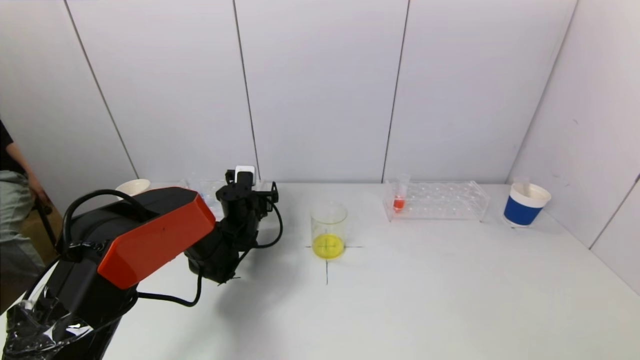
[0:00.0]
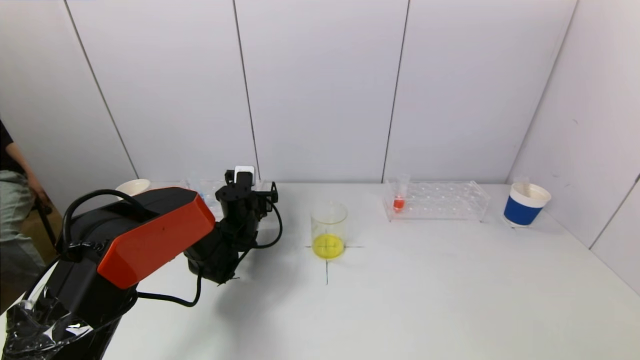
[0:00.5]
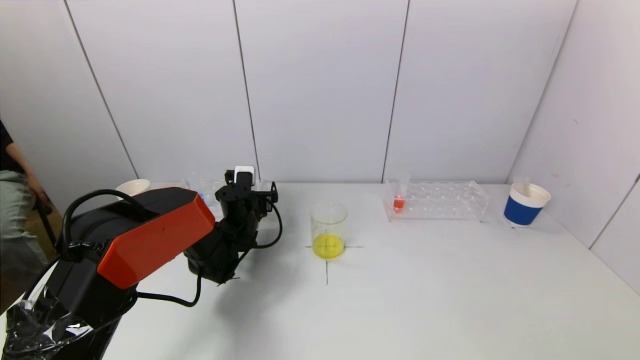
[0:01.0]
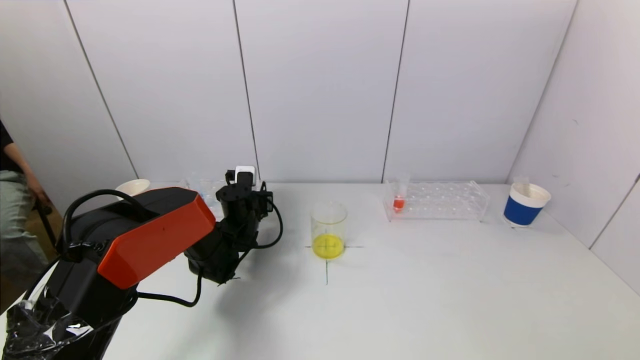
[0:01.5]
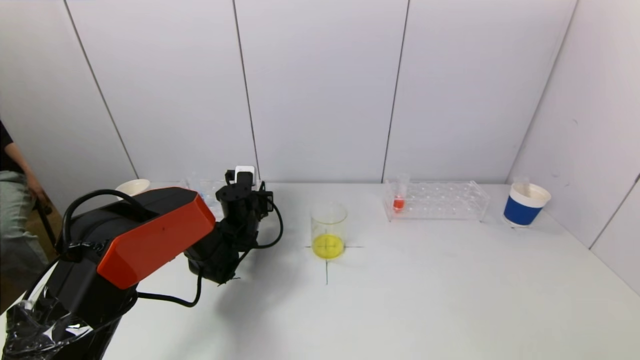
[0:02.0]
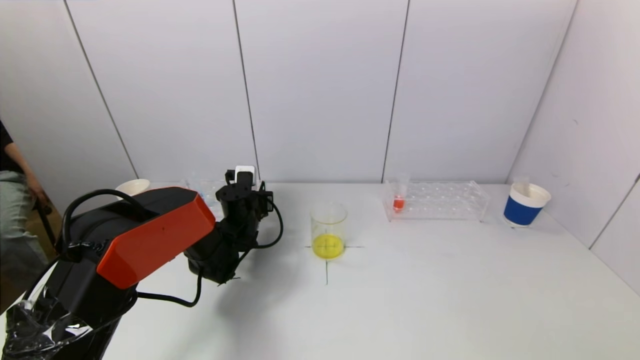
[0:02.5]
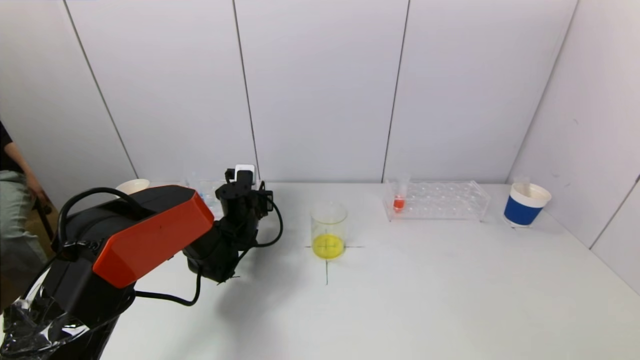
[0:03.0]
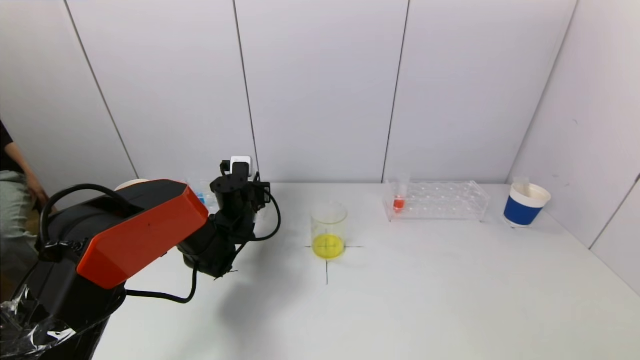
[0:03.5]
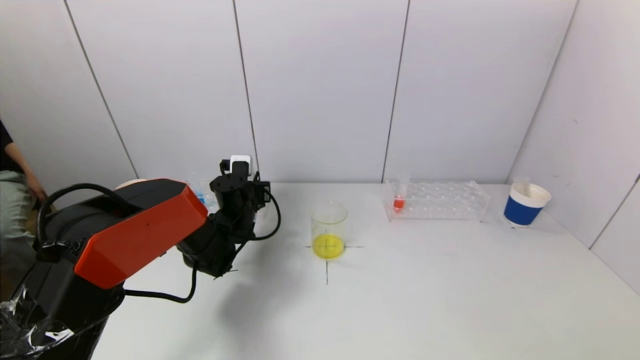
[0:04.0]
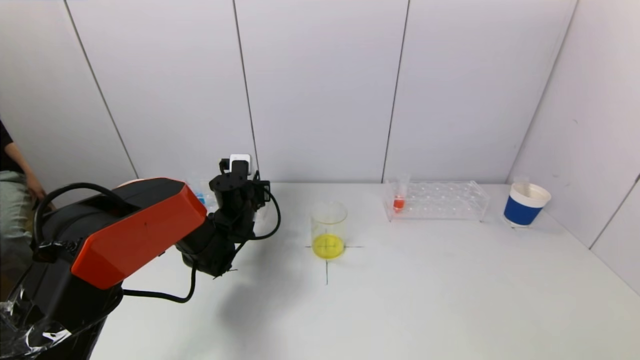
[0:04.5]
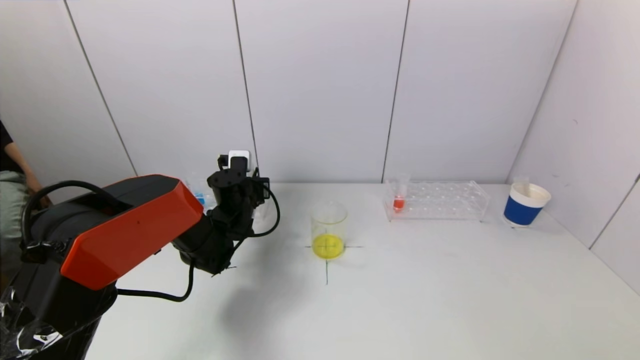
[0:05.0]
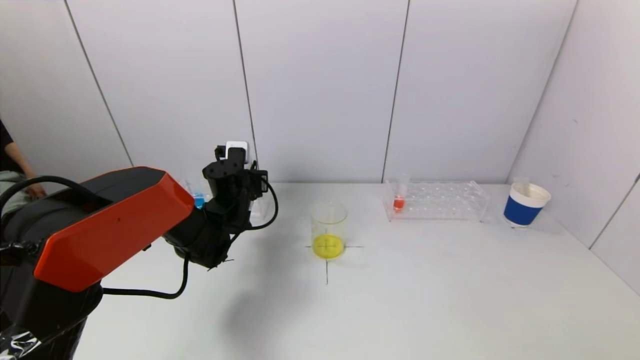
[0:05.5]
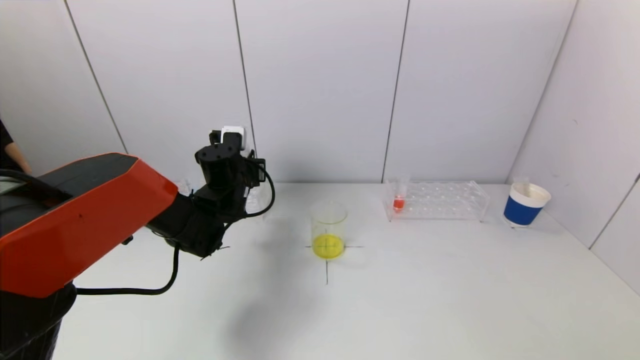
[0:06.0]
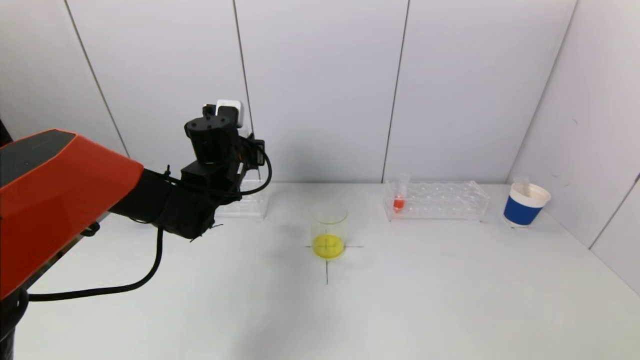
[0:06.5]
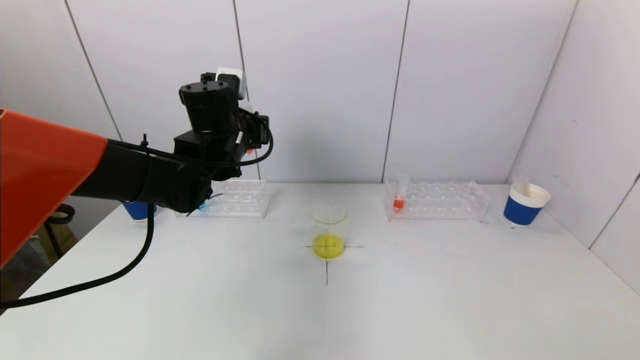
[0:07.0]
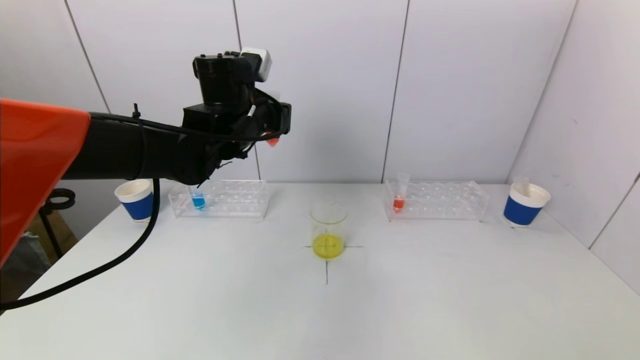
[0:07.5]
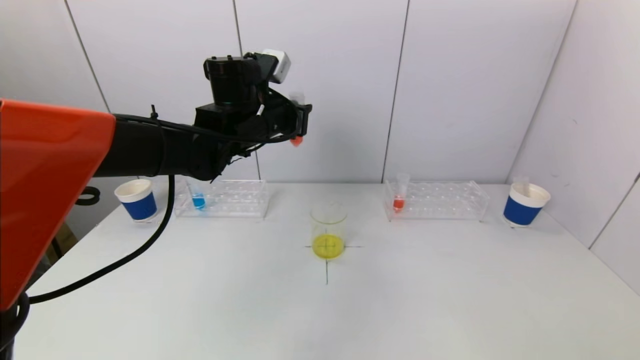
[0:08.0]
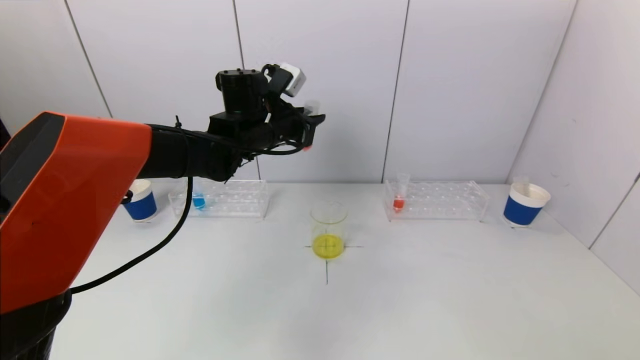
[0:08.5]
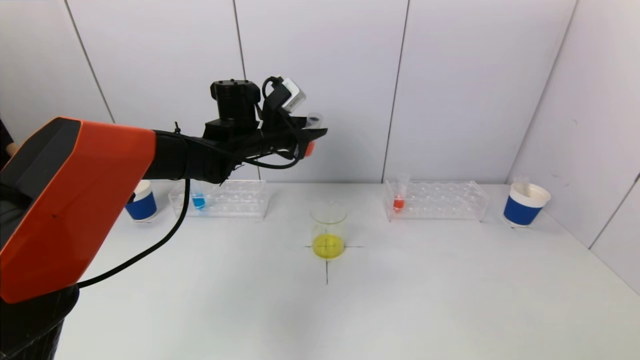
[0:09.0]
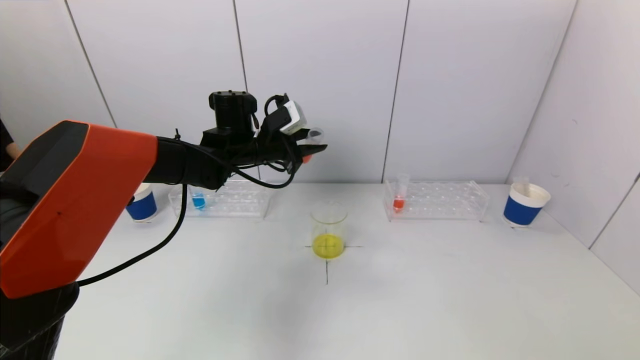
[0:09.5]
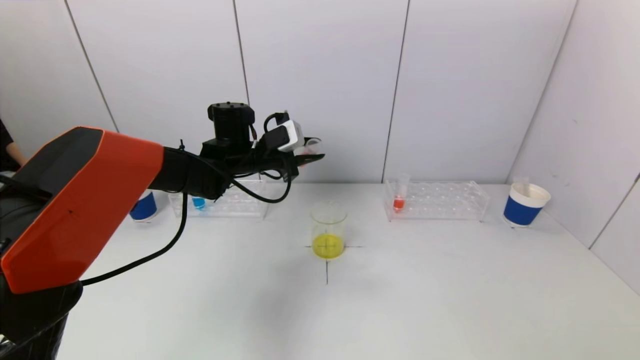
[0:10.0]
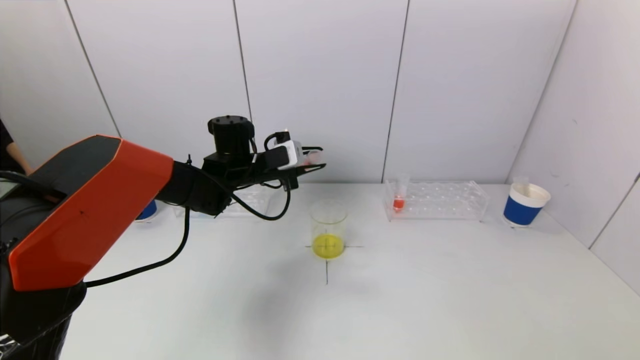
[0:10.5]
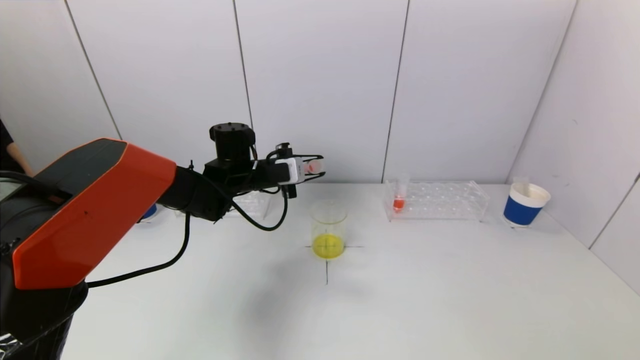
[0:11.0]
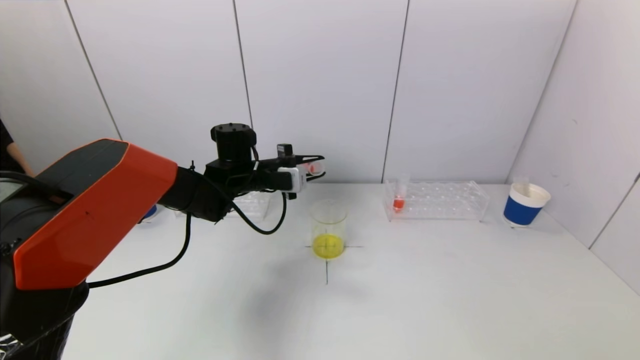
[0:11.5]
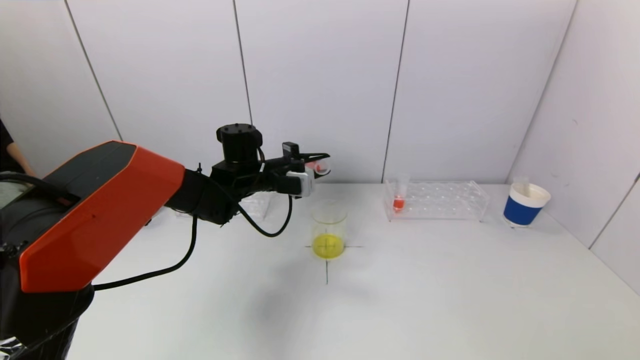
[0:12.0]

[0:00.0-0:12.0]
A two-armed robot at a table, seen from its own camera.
Task of the whole recording: pick up a test tube with pigment on left test tube rack and a test tube with pigment on right test tube rack by grippers and pour them into the beaker.
2.0 to 4.0 s: There are only small adjustments of the grippers.
4.0 to 6.0 s: The left gripper heads upward, covering approximately 5 cm.
6.0 to 8.0 s: The left gripper travels upward by some 15 cm.
8.0 to 10.0 s: The left gripper moves downward, about 10 cm.

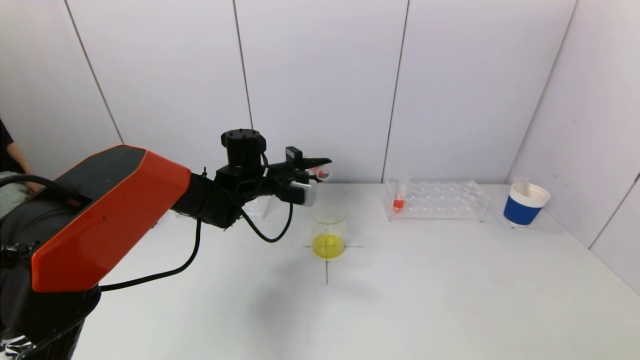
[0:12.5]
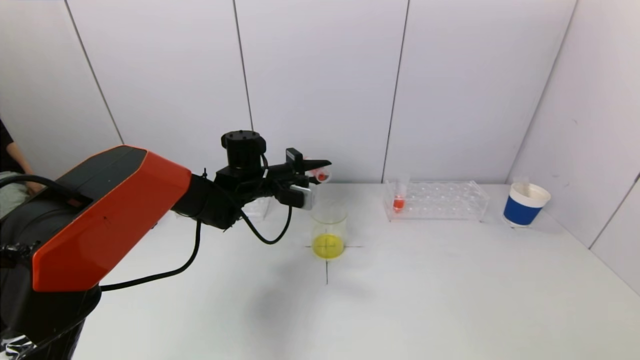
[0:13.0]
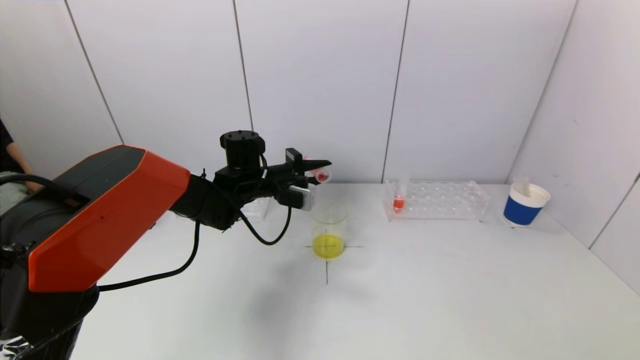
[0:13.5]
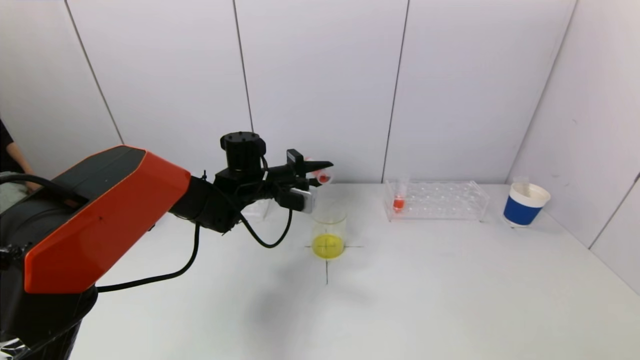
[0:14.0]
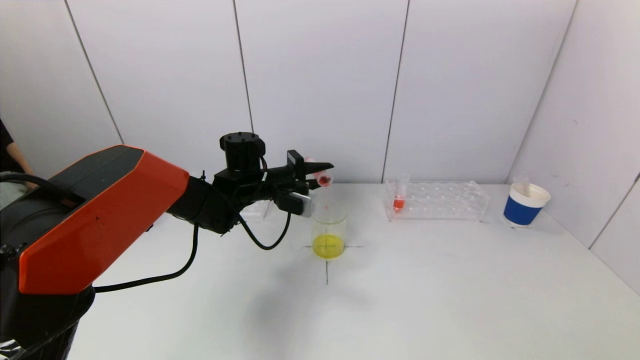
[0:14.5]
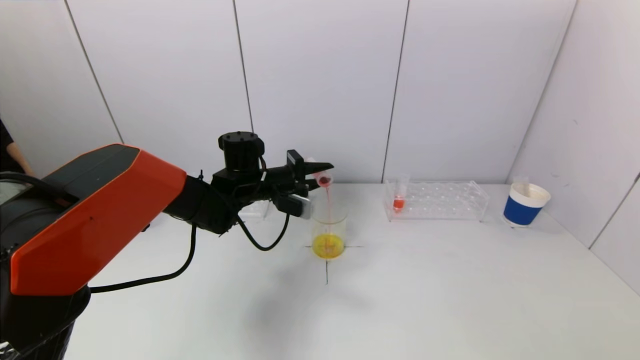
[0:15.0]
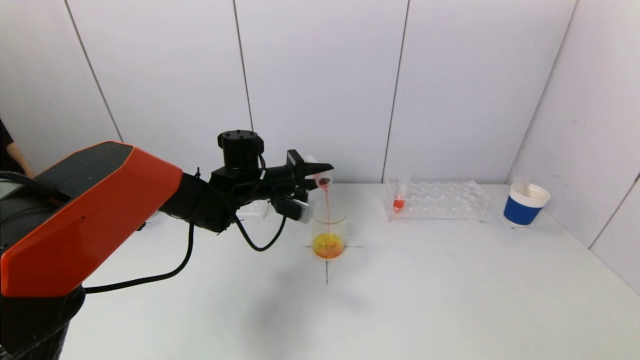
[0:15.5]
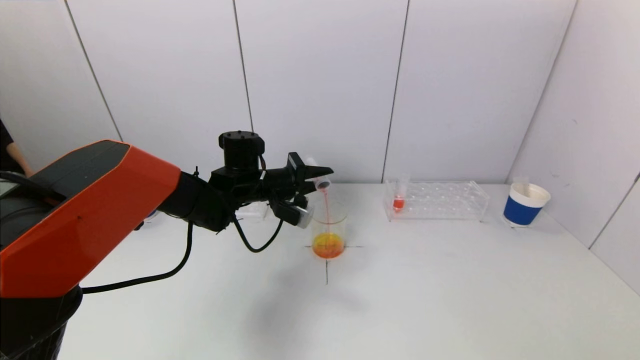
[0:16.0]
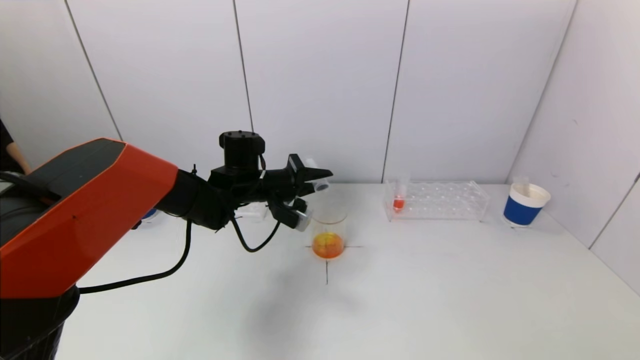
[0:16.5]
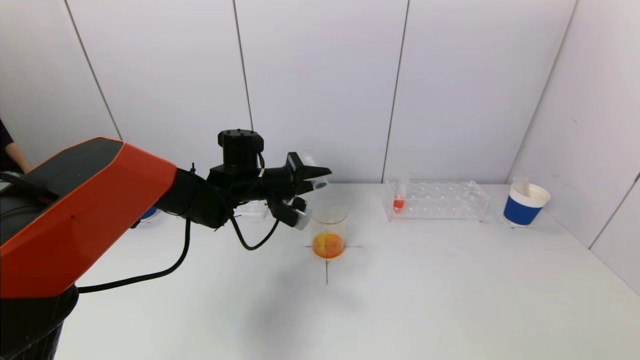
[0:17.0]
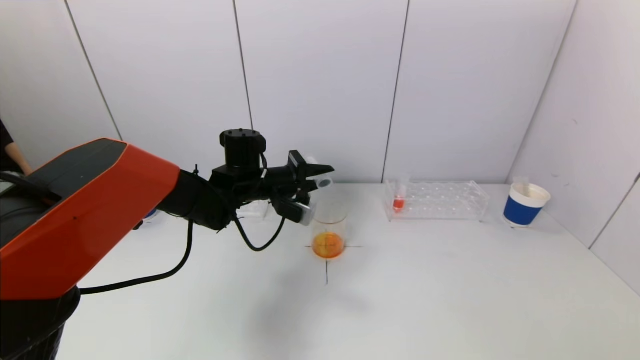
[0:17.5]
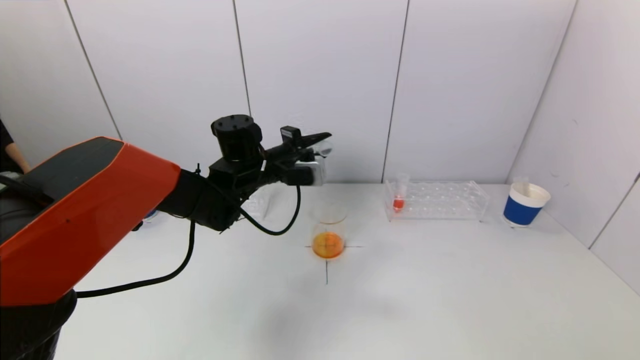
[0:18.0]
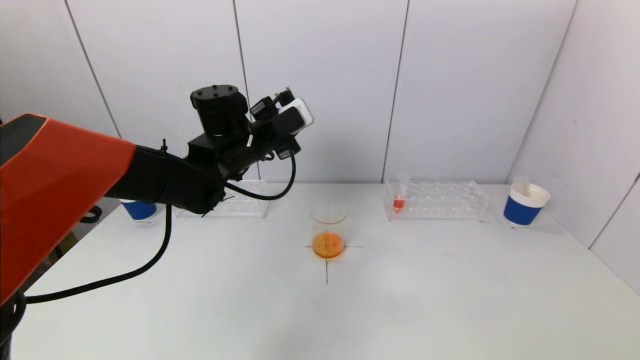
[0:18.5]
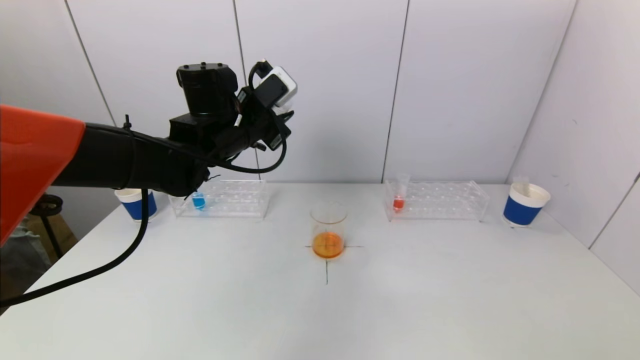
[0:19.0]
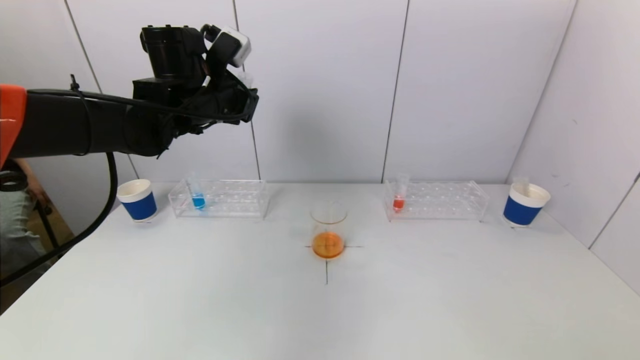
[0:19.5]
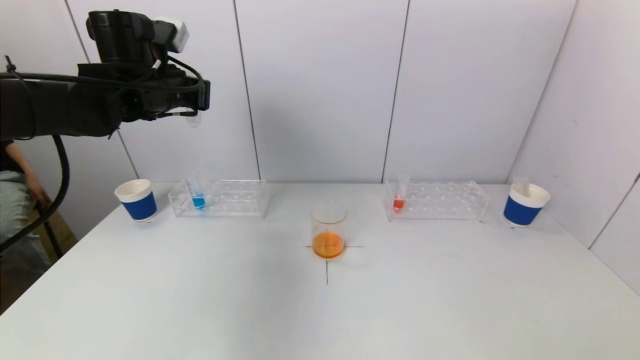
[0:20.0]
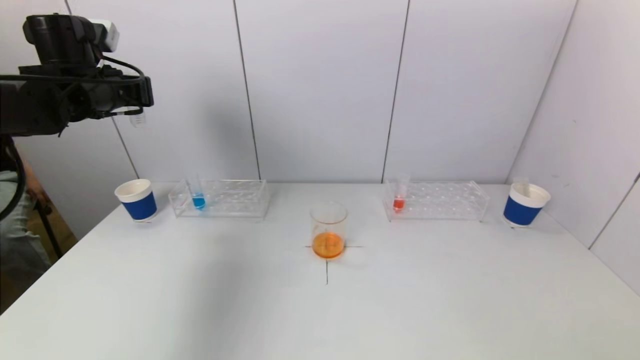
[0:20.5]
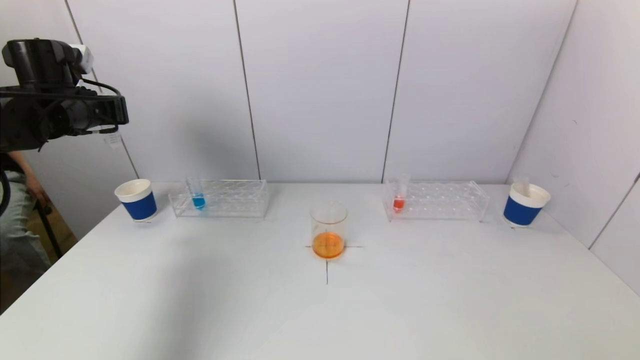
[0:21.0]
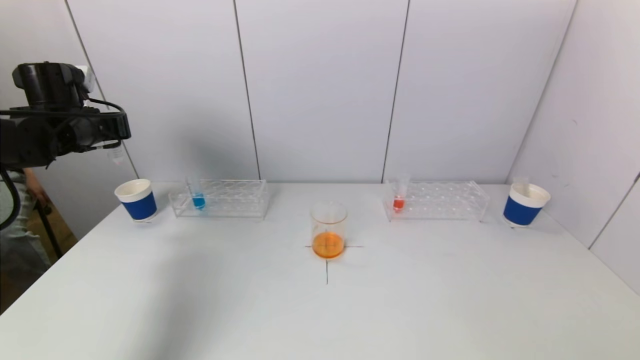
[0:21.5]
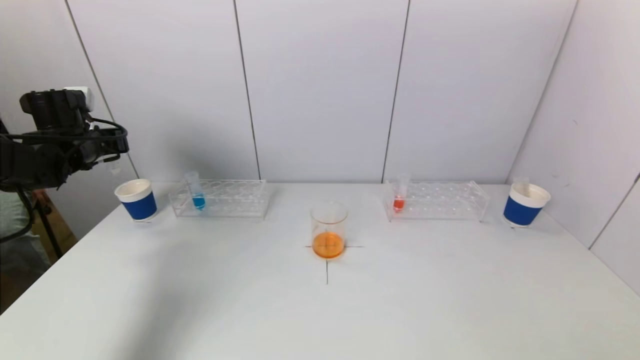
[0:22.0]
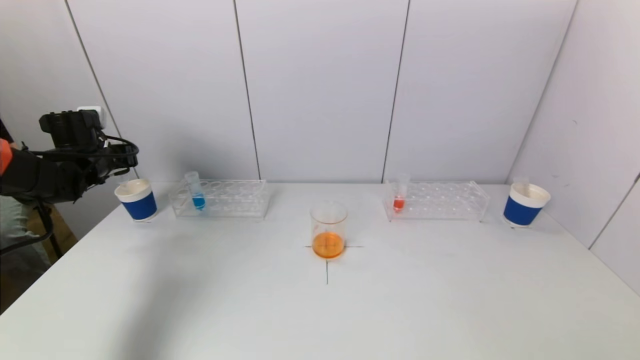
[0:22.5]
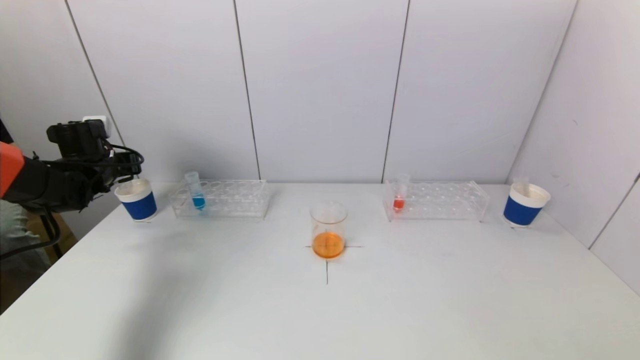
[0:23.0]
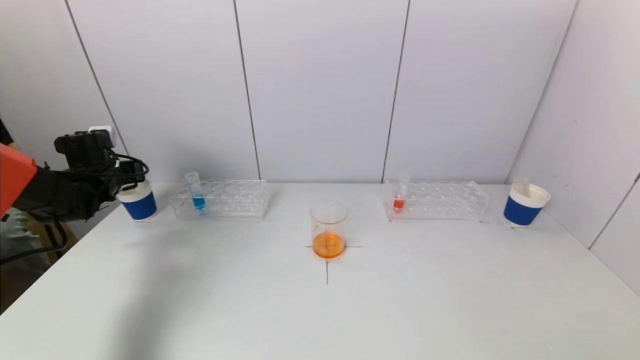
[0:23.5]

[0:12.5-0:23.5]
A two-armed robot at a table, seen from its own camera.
Task of the whole recording: pick up a test tube with pigment on left test tube rack and a test tube with pigment on right test tube rack by grippers and pour them into the beaker.
Step, 12.5 to 17.5 s: Pour the red reagent into the graduated cylinder with the left gripper.
12.5 to 16.0 s: The grippers move only a little.
18.0 to 20.0 s: The left gripper heads to the left and upward, covering about 20 cm.
20.0 to 21.5 s: The left gripper goes roughly 15 cm to the left and downward.
21.5 to 23.5 s: The left gripper travels downward by some 10 cm.
